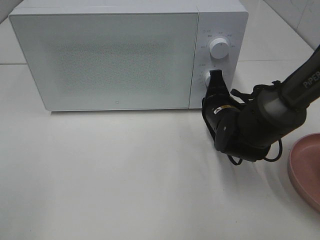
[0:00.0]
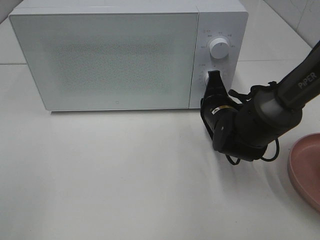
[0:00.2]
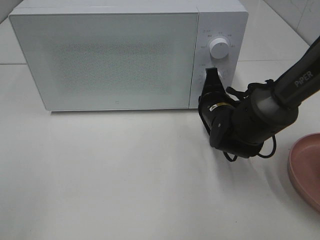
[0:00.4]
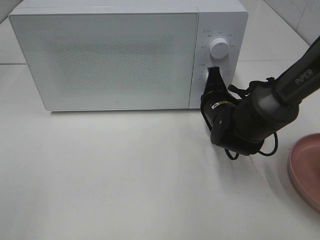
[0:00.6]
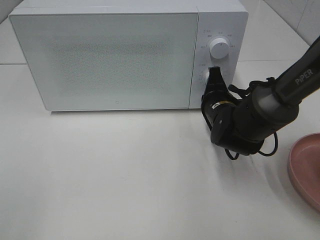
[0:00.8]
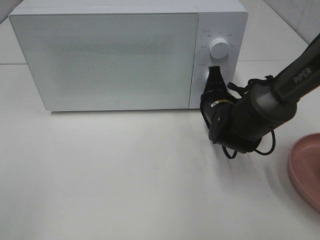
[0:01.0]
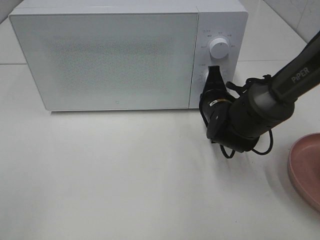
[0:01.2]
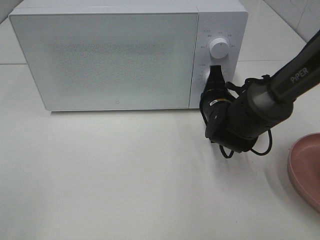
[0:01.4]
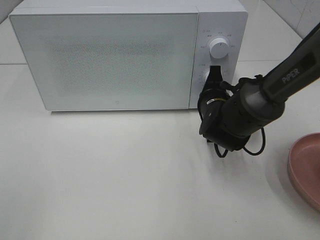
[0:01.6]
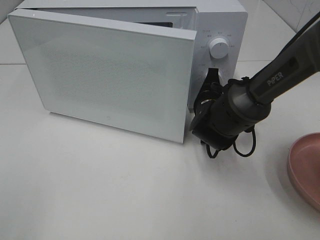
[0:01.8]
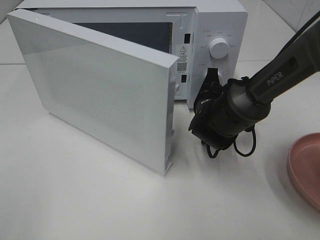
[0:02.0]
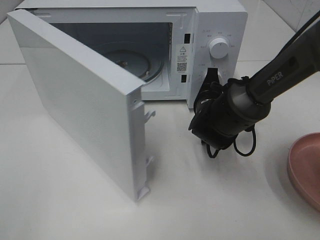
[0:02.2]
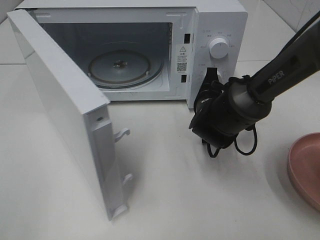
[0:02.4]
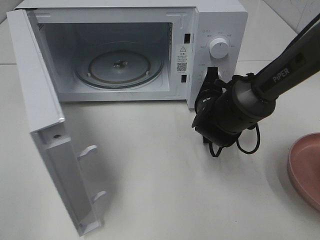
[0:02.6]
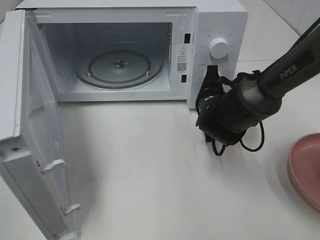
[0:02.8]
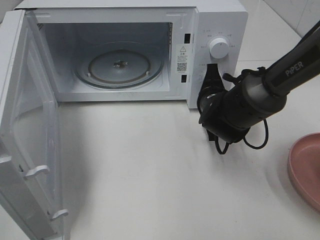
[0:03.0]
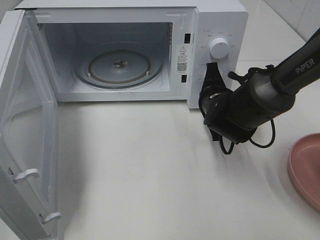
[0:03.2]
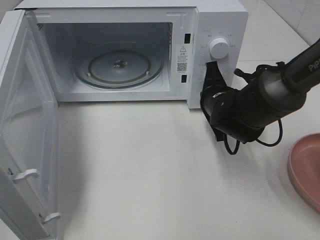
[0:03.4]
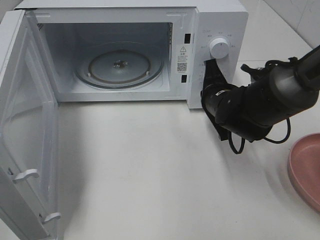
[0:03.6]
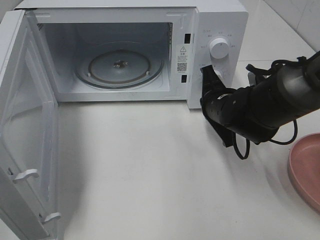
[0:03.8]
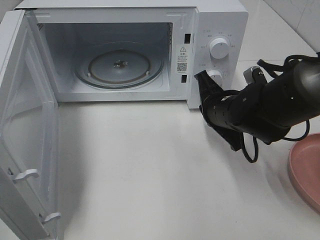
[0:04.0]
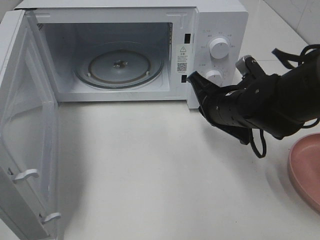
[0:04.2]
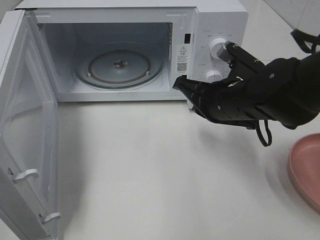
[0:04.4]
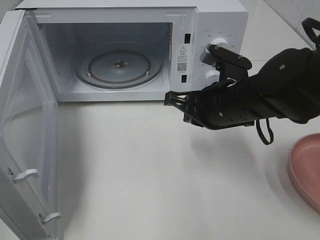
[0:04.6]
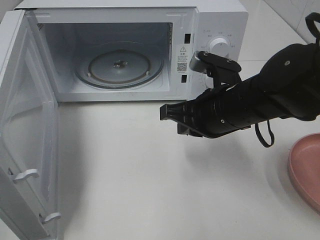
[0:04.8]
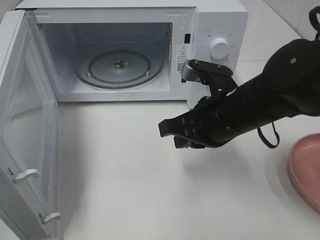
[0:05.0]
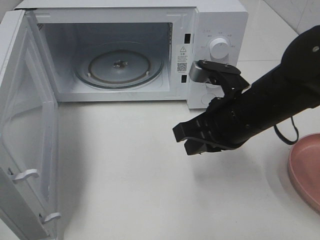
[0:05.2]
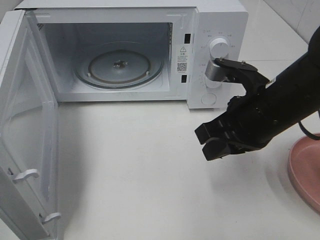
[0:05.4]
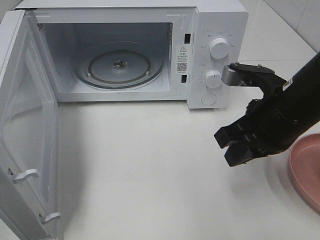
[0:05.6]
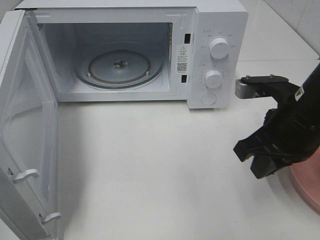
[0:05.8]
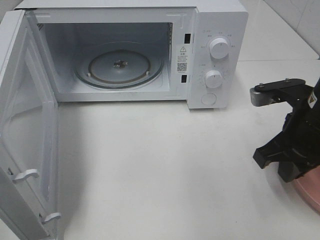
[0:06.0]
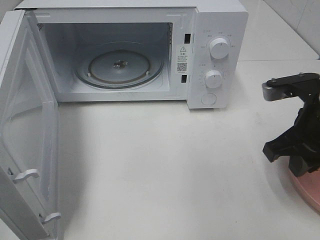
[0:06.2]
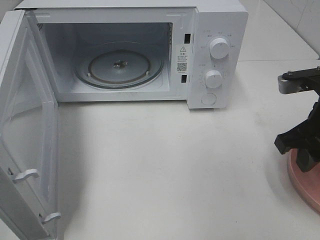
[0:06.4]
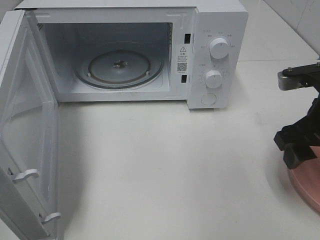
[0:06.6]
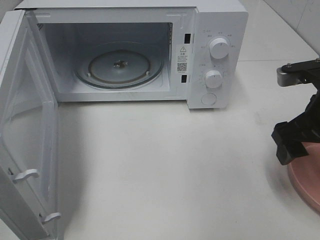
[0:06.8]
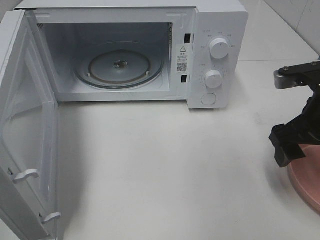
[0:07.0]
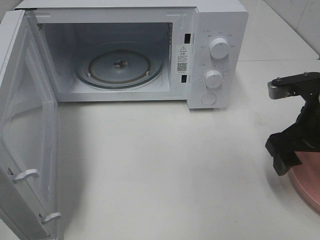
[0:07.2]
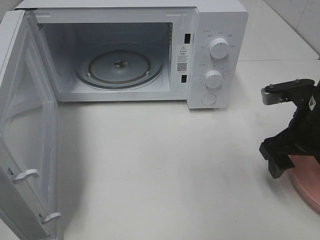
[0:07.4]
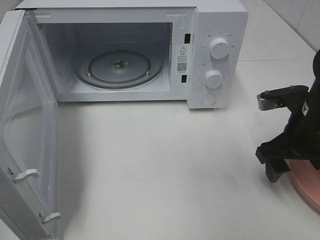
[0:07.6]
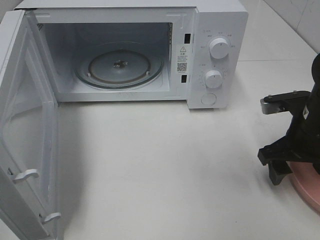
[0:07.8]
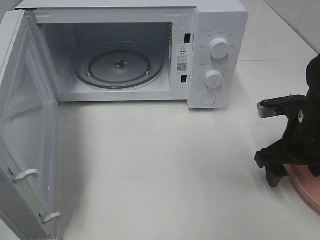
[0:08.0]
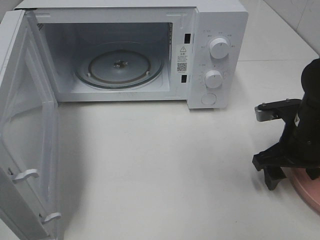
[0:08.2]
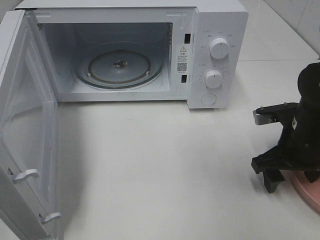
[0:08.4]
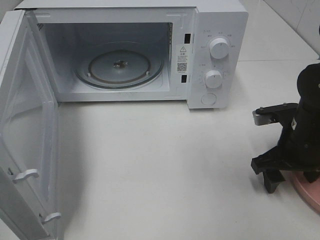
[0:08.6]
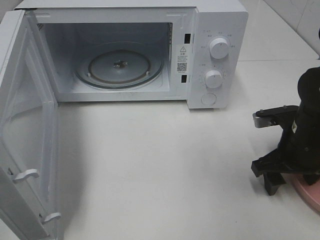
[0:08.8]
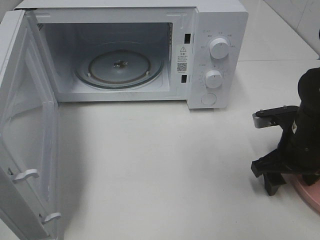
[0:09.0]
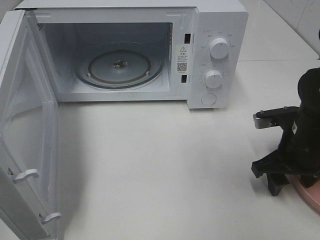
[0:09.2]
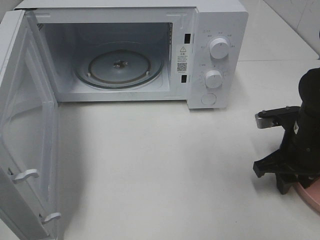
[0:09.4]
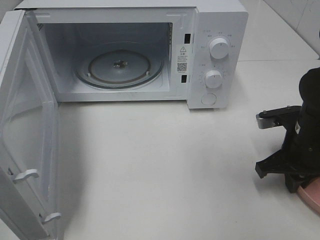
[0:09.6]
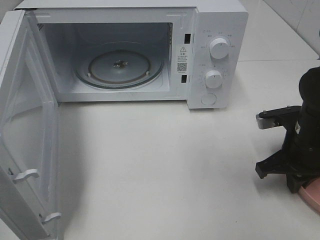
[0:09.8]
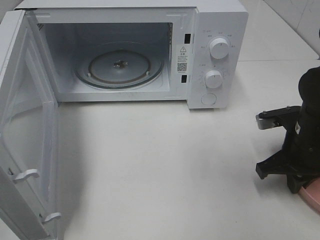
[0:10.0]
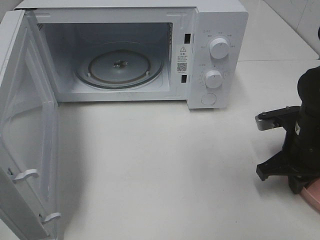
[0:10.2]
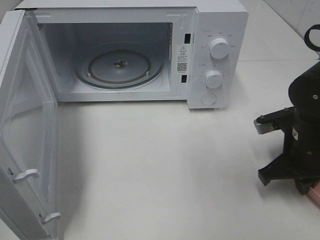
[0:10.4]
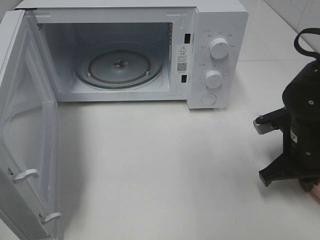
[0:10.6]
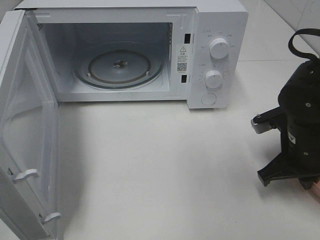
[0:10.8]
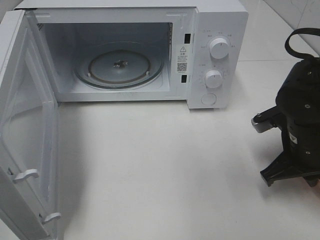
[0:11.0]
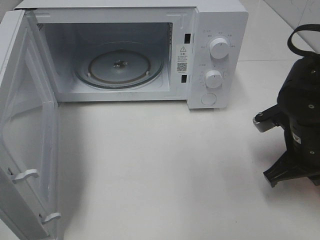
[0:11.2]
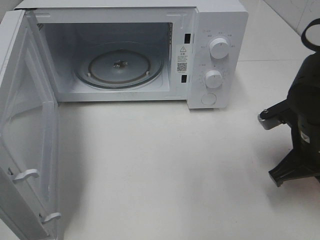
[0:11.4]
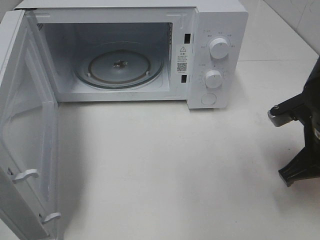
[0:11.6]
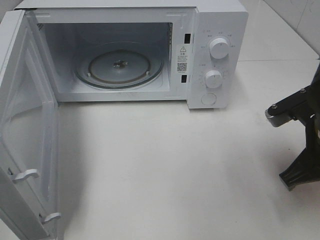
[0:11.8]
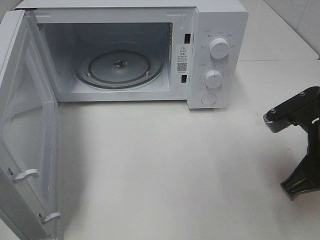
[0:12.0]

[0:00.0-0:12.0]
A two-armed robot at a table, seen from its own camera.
Task of the whole recording: Heat the burger.
Step, 0:00.0 to 0:03.4: Right hand: press the switch.
Step, 0:03.6 to 0:09.6: Right hand: grab the plate with the hamburger.
0:00.0 to 0:01.6: The grippers move only a little.
0:03.0 to 0:04.4: The right gripper heads upward and backward, covering roughly 10 cm.
0:04.4 to 0:06.0: The right gripper moves to the right and backward, about 10 cm.
0:06.0 to 0:07.6: The right gripper changes place by some 5 cm, and opens its fingers.
0:07.6 to 0:09.0: The grippers move only a little.
0:09.0 to 0:10.4: The right gripper closes up.
0:10.4 to 0:12.0: The right gripper travels upward and backward by roughly 10 cm.

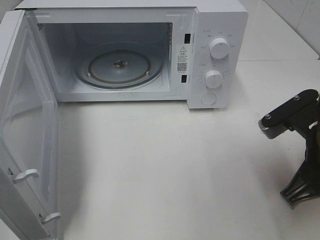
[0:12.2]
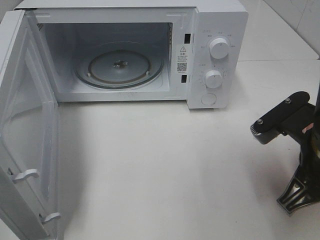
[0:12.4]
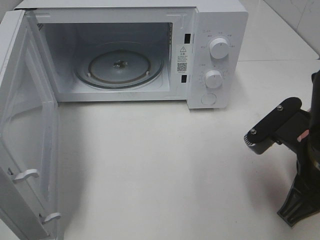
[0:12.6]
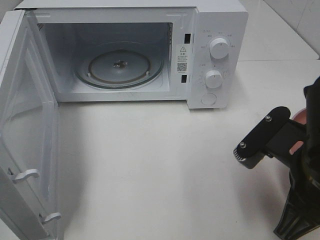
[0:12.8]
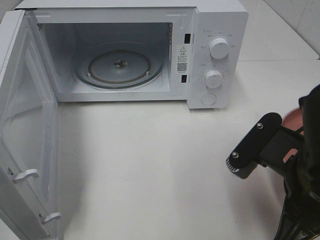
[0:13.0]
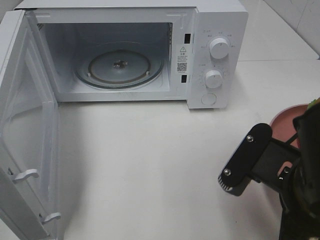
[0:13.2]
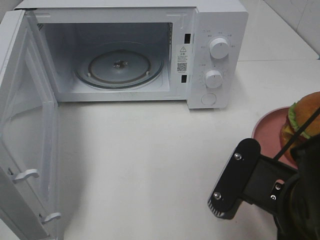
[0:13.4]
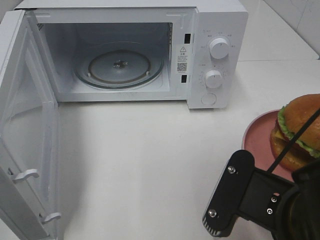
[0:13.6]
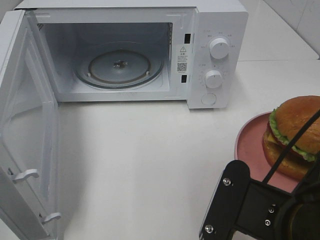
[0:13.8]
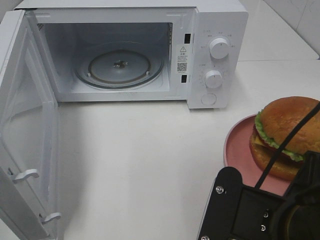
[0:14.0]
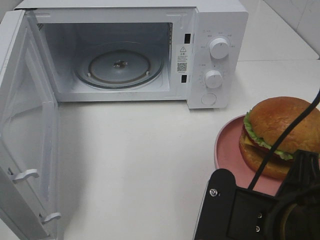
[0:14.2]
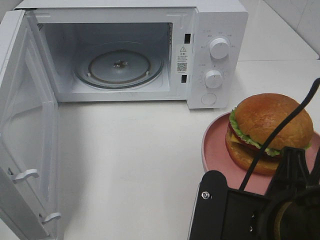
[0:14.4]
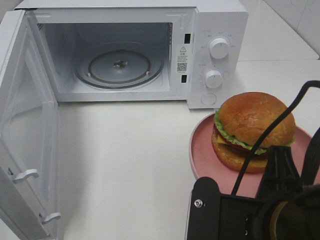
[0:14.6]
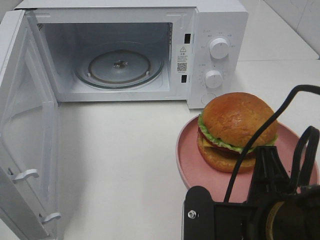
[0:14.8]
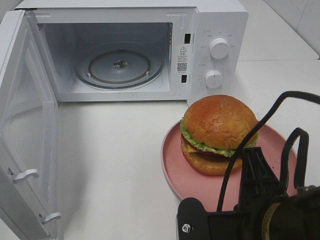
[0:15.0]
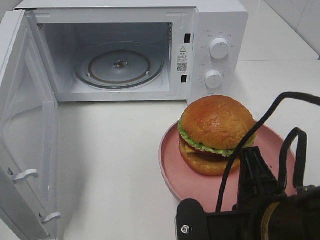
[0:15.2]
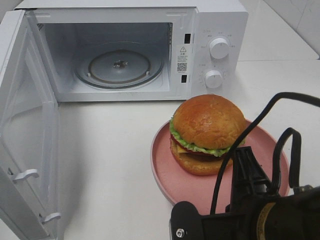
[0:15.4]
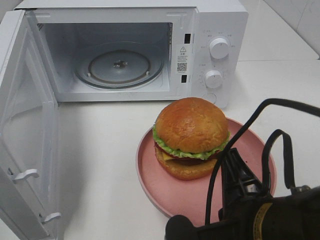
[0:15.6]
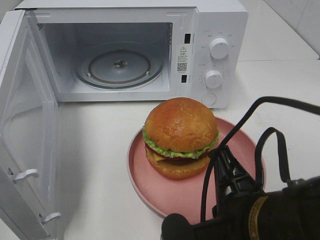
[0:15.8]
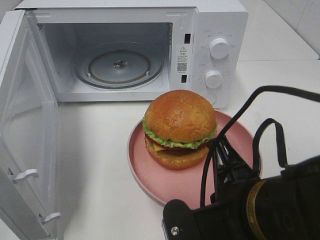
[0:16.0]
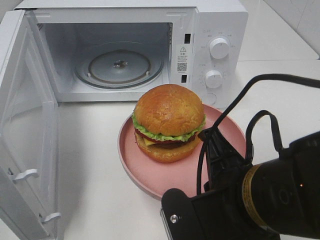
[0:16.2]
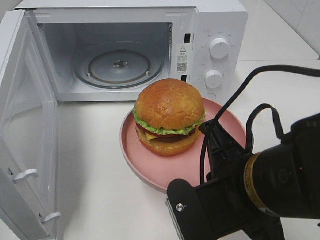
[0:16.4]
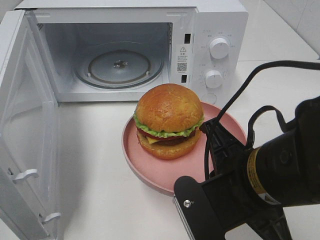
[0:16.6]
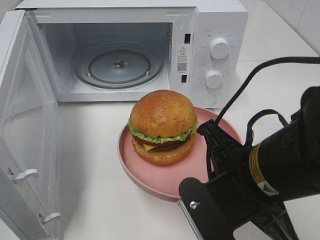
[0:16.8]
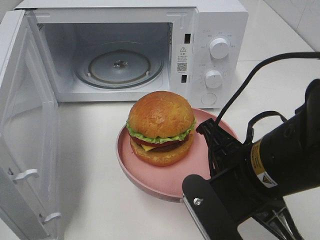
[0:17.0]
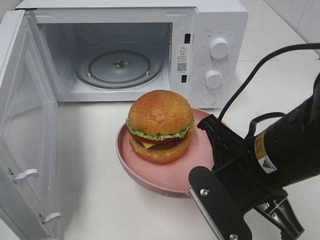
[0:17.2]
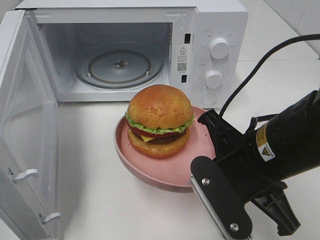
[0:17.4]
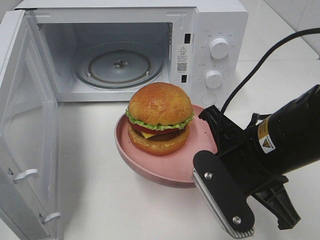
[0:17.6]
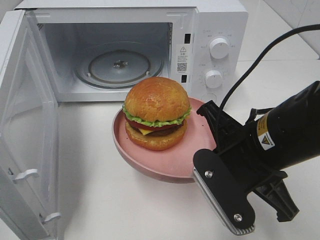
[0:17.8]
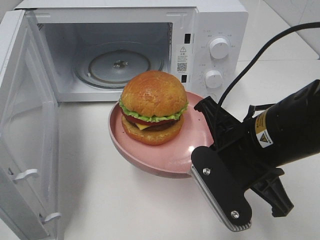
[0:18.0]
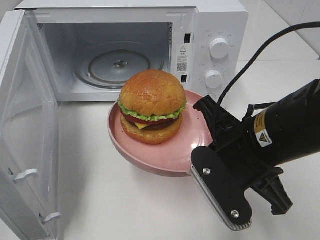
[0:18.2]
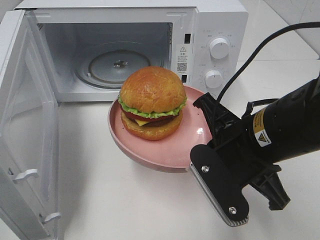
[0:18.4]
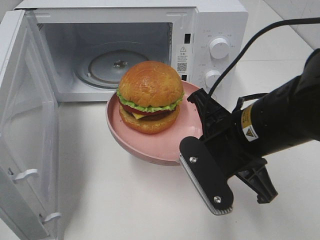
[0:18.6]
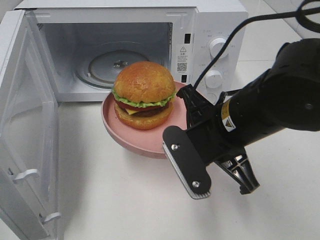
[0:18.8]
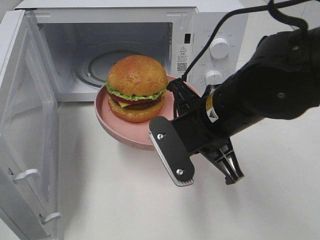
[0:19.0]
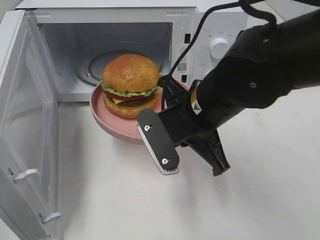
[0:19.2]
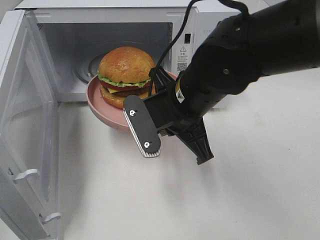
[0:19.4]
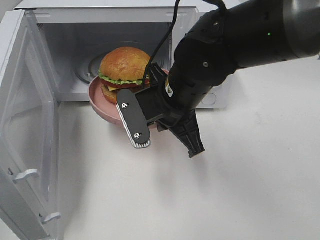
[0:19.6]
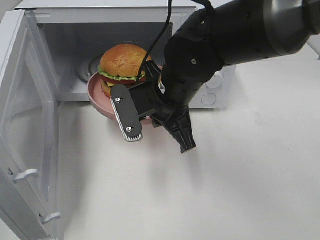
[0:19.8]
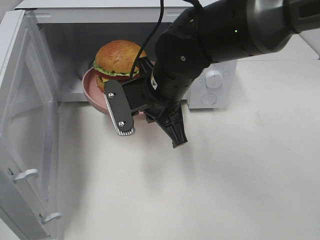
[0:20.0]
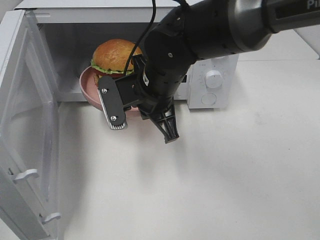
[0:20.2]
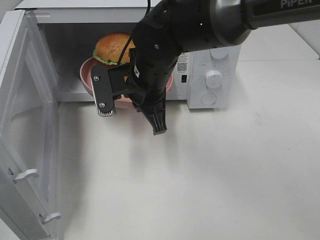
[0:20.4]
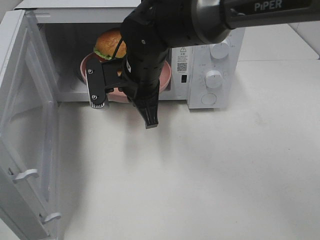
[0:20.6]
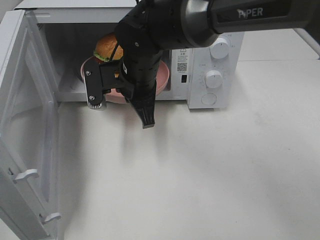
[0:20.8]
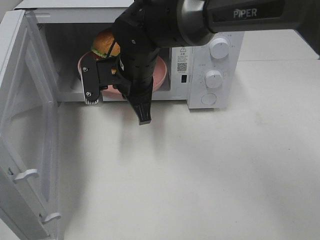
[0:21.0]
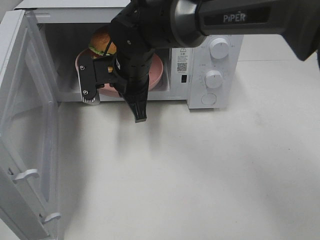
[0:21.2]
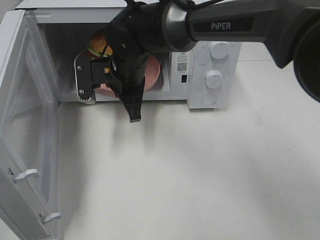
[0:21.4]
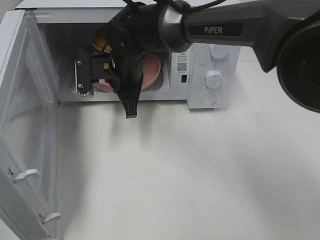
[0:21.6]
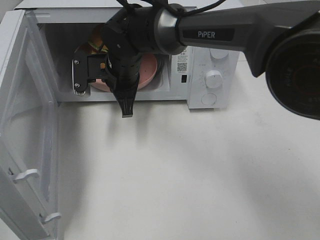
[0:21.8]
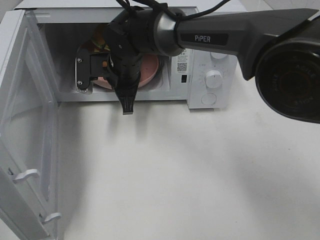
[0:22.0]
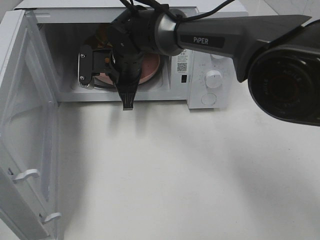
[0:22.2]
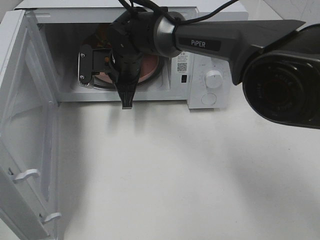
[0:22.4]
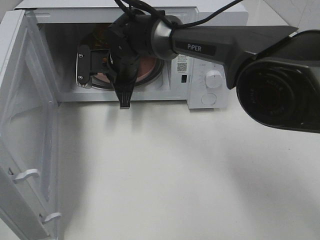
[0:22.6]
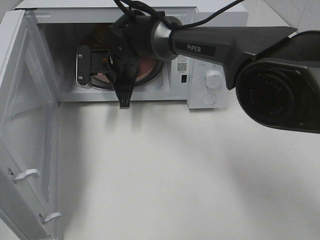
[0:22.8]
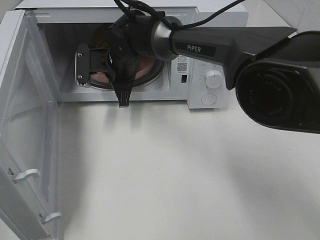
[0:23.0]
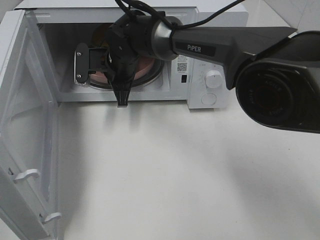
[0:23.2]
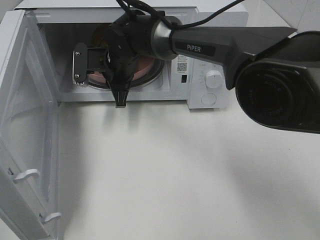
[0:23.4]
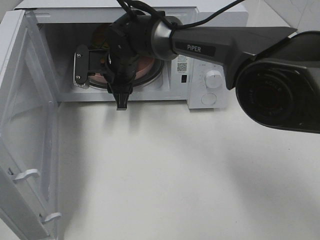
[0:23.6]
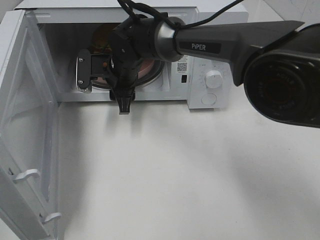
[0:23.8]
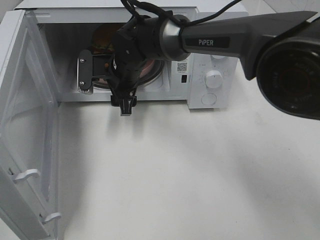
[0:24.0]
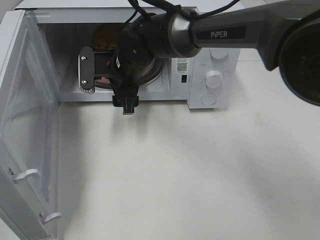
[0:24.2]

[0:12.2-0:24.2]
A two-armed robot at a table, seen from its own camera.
Task of the whole recording: Heat the burger.
Step, 0:12.2 to 0:24.0: Right hand: place the plate in the microwave.
0:12.2 to 0:13.8: The right gripper travels backward and to the left by approximately 15 cm.
0:15.2 to 0:16.6: The right gripper travels forward by approximately 5 cm.
0:16.6 to 0:18.2: The right gripper shifts by some 5 cm.
0:18.2 to 0:19.8: The right gripper travels forward and to the left by some 15 cm.
0:19.8 to 0:21.2: The right gripper heads forward and to the left, covering about 10 cm.
0:21.2 to 0:22.6: The right gripper heads forward, covering roughly 5 cm.
0:22.6 to 0:24.2: The right gripper opens up.
